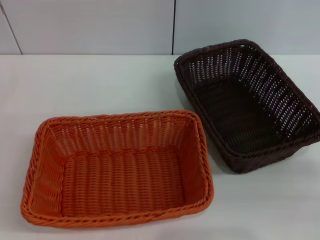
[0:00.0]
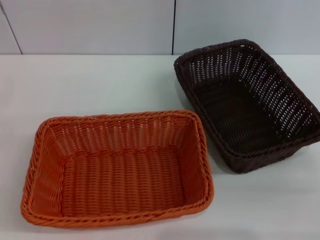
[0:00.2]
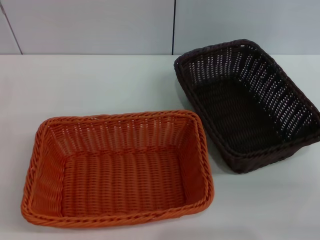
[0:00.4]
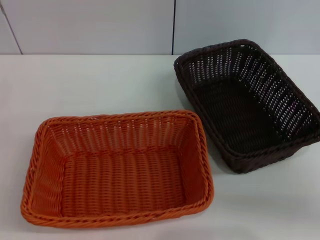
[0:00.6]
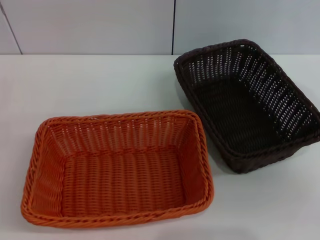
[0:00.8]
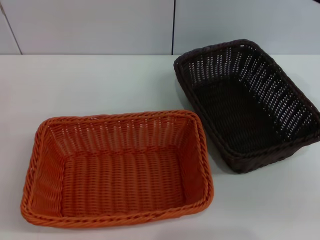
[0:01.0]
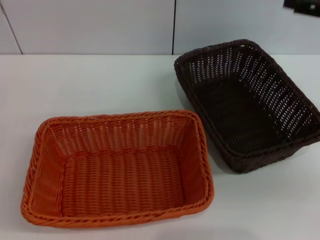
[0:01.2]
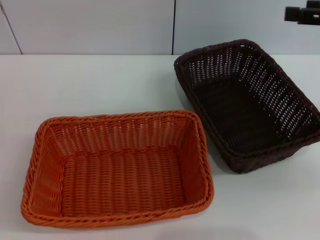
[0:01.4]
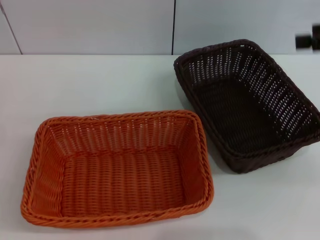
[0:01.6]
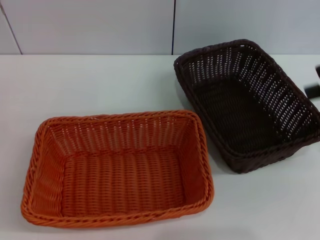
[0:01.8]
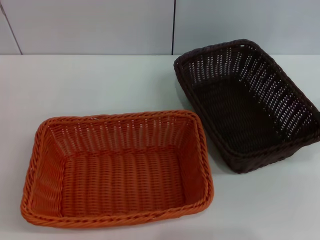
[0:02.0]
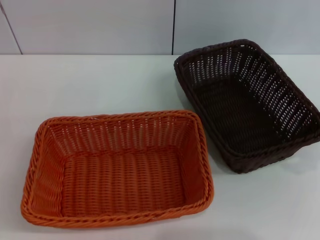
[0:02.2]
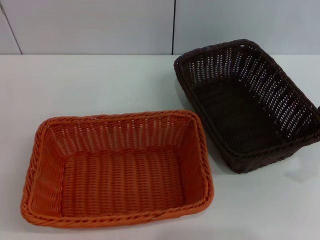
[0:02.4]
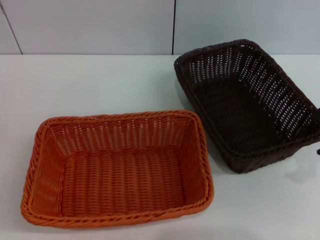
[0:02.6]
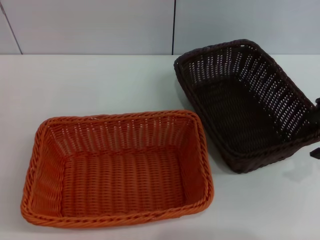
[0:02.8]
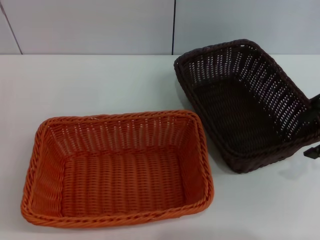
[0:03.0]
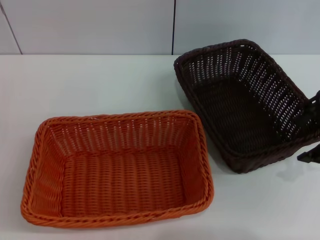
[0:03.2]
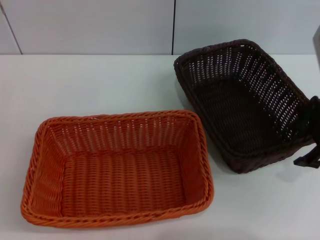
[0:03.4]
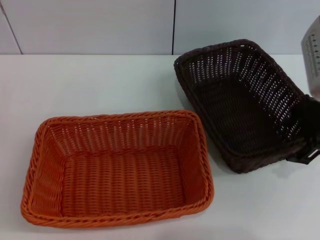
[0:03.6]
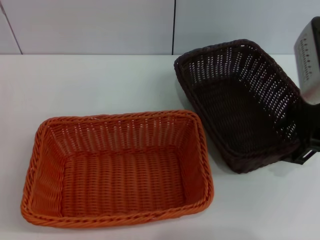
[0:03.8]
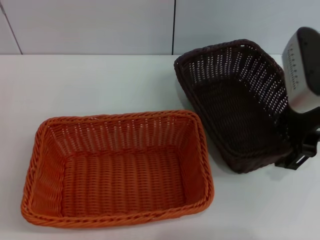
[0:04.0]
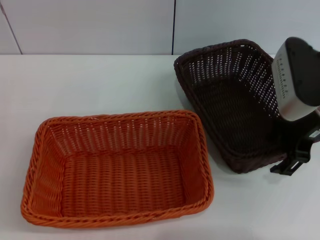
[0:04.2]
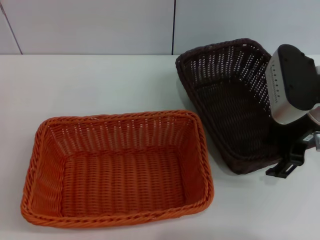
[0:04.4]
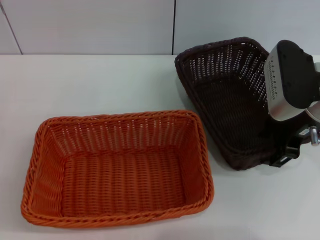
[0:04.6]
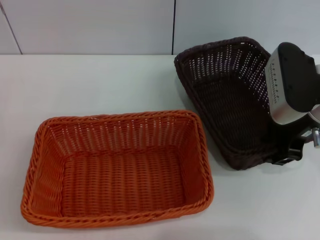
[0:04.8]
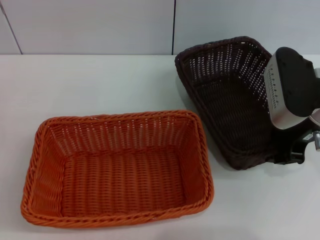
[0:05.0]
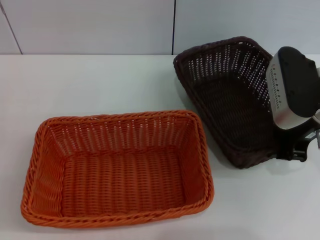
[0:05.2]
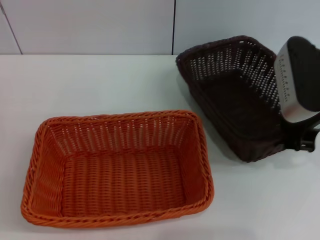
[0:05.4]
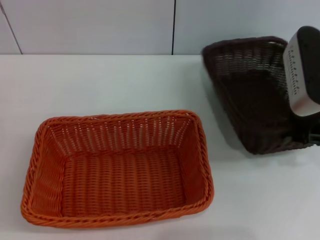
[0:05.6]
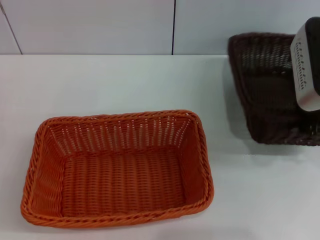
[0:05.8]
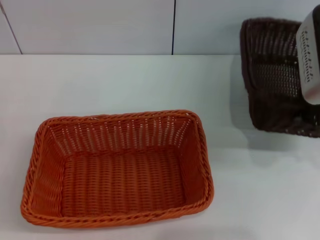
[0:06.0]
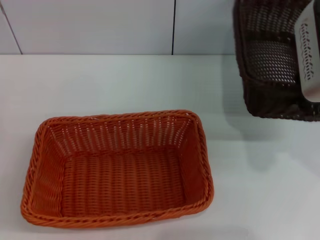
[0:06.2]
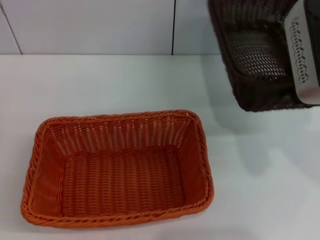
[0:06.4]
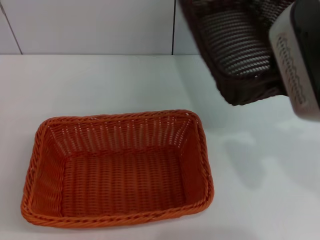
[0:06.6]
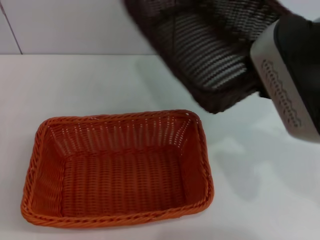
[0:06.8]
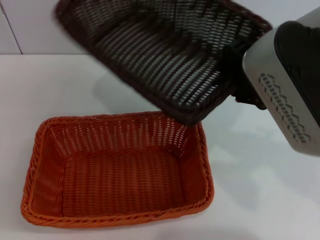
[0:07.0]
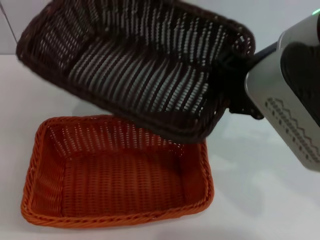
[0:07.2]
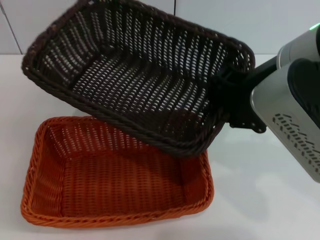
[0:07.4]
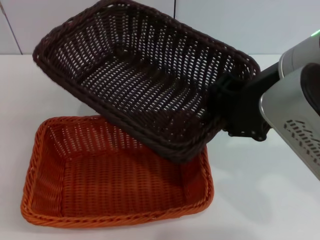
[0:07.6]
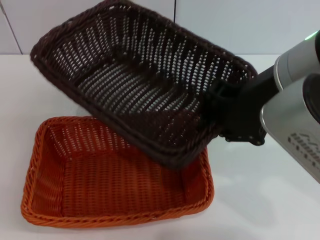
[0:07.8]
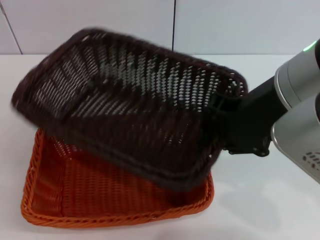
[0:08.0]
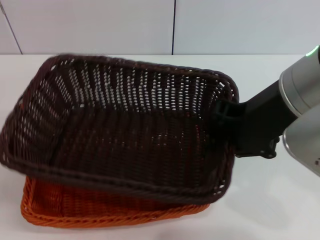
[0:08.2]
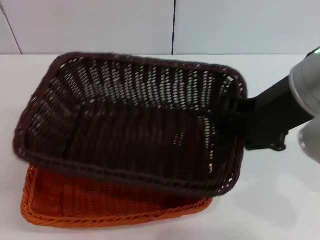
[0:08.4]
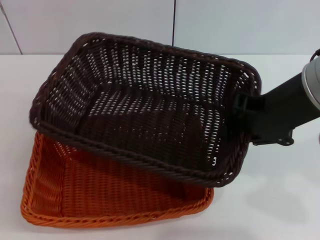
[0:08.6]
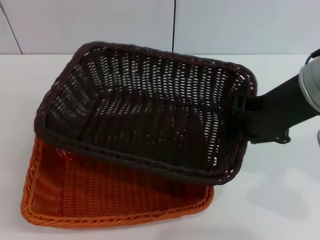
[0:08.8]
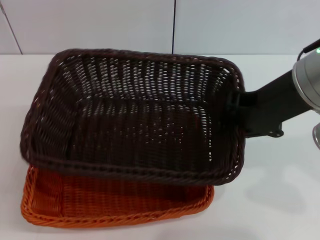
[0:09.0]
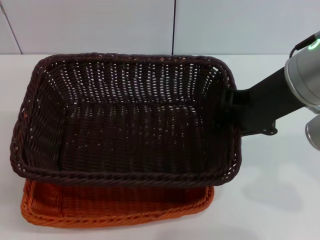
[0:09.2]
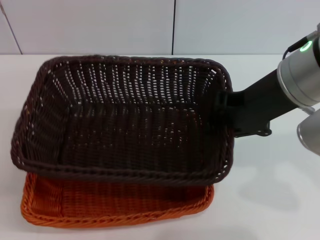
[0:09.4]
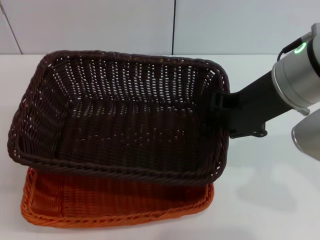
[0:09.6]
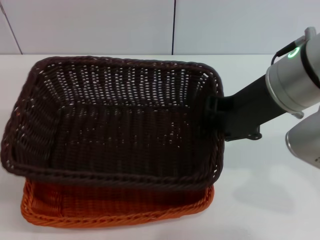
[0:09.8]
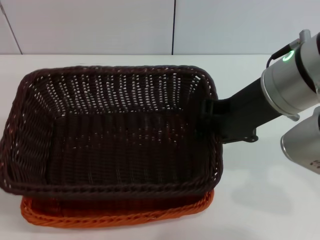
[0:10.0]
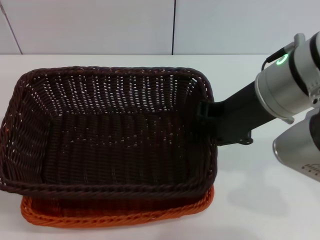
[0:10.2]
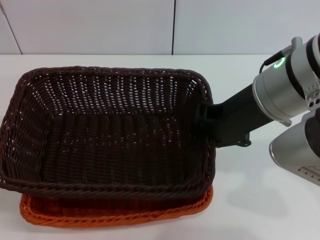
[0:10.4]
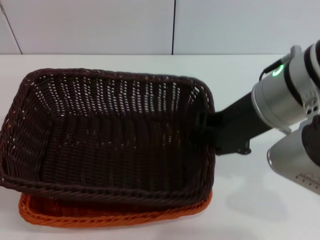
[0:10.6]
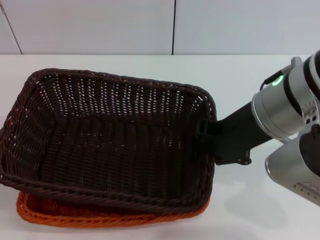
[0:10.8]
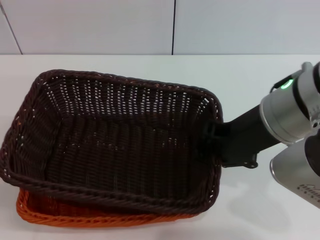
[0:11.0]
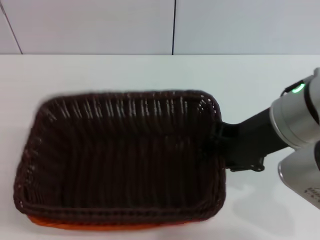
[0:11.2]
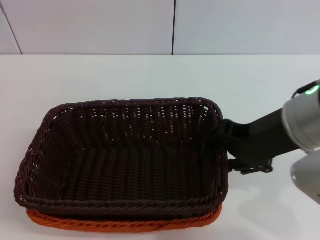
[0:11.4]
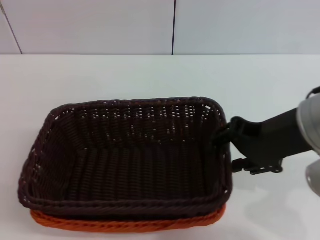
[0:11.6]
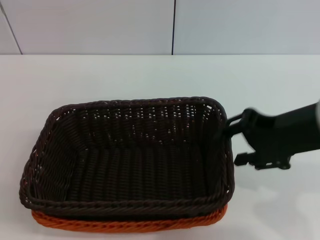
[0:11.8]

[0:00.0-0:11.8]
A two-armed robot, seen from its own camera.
Step, 0:00.0 to 0:05.8: Pick up the dark basket with the right gripper.
Step, 0:06.0 to 0:11.6: Place the dark basket on the light basket with the right gripper.
0:00.0 to 0:01.4: The right gripper is displaced upward and forward by about 25 cm.
0:01.4 to 0:03.0: The right gripper heads to the left, covering about 5 cm.
0:03.0 to 0:04.4: The right gripper travels downward and to the left by some 10 cm.
0:04.4 to 0:06.0: The right gripper shifts roughly 5 cm upward, and closes up.
0:06.0 to 0:07.4: The right gripper shifts approximately 10 cm to the left and backward.
0:10.4 to 0:11.8: The right gripper heads to the right, covering approximately 5 cm, and opens its fingers.

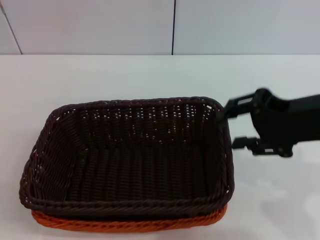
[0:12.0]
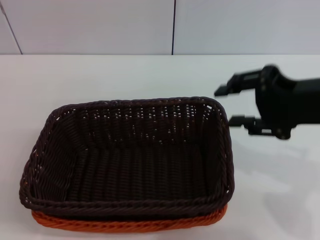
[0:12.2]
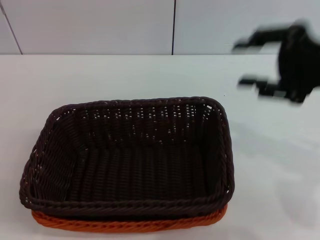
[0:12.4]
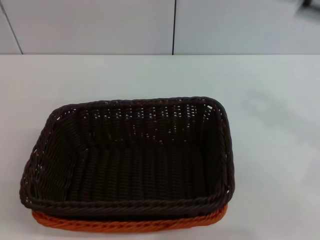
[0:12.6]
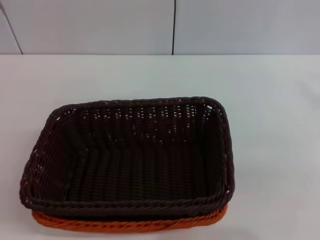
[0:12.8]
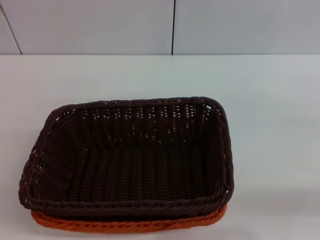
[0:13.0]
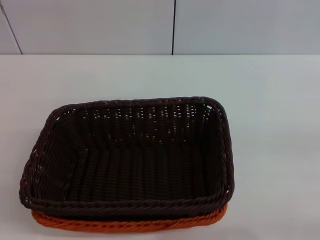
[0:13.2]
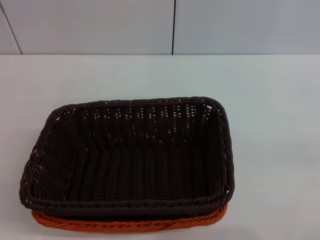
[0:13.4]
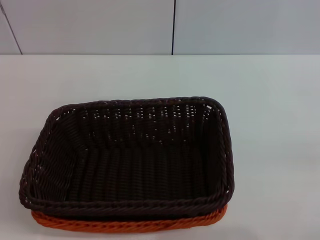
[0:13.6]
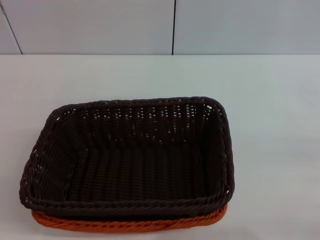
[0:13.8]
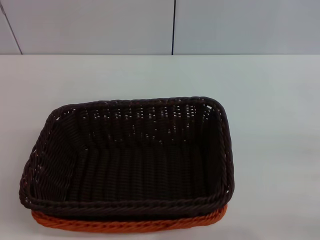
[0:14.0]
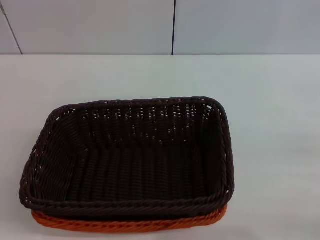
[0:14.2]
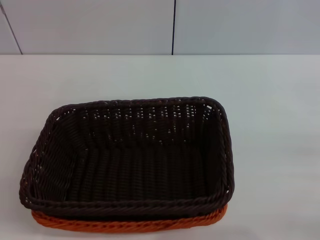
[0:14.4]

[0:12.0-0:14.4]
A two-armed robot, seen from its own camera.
0:12.0 to 0:13.2: The right gripper goes some 25 cm to the right and downward.
